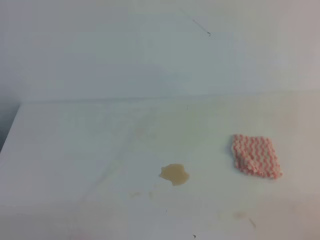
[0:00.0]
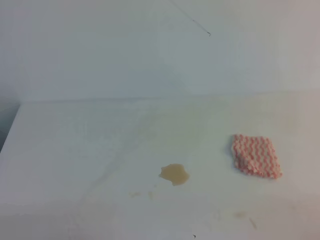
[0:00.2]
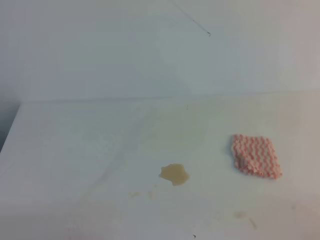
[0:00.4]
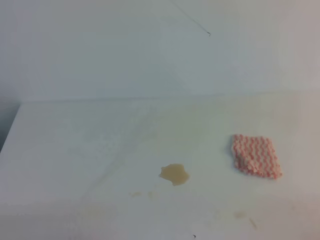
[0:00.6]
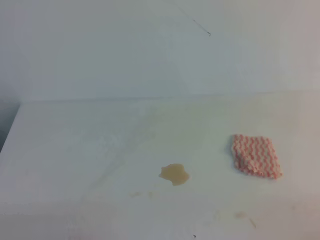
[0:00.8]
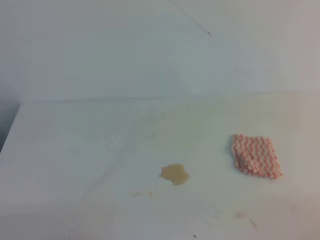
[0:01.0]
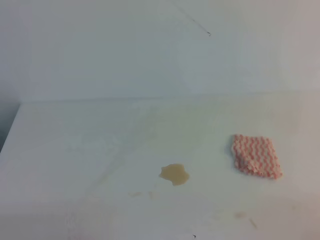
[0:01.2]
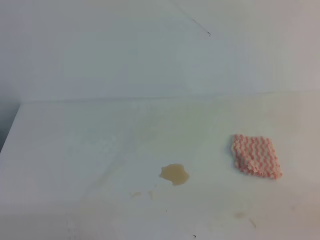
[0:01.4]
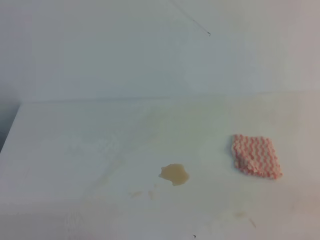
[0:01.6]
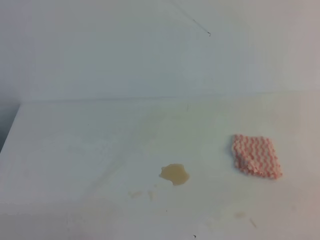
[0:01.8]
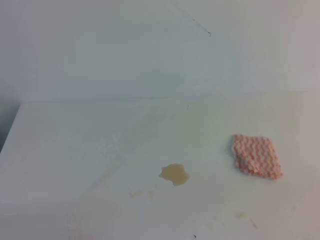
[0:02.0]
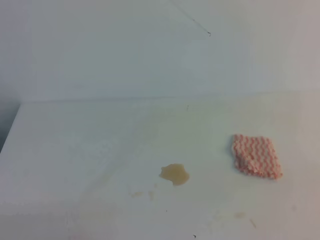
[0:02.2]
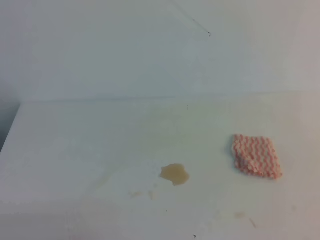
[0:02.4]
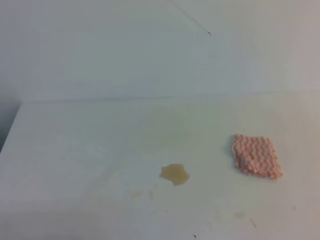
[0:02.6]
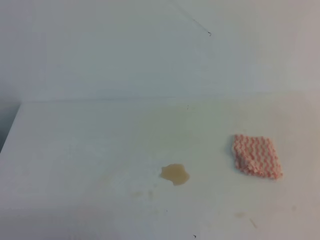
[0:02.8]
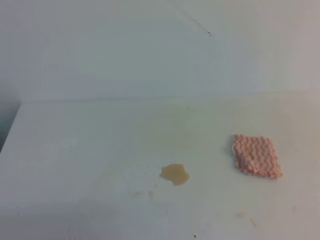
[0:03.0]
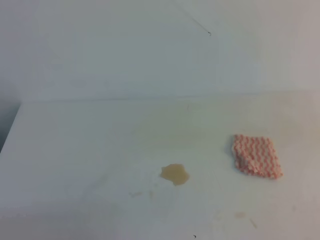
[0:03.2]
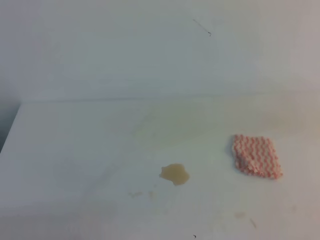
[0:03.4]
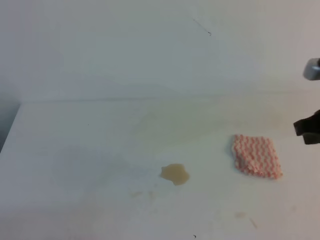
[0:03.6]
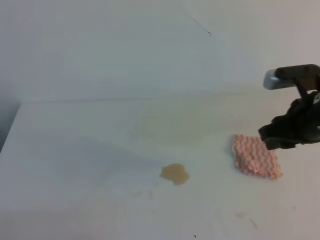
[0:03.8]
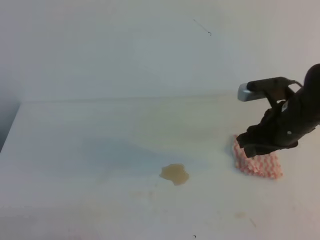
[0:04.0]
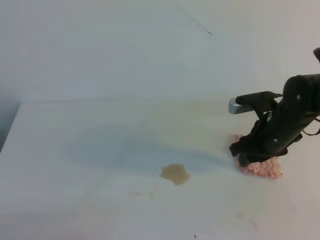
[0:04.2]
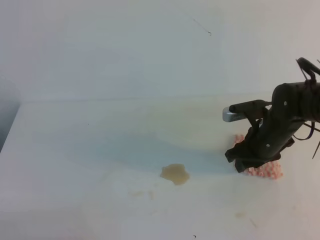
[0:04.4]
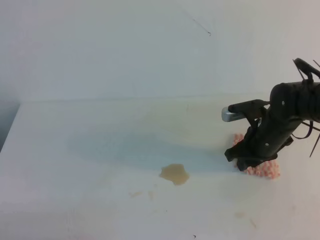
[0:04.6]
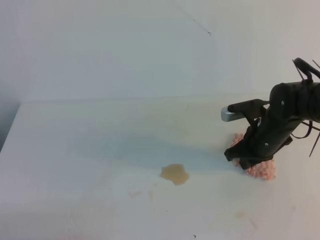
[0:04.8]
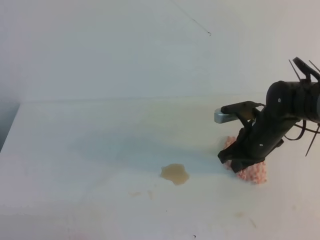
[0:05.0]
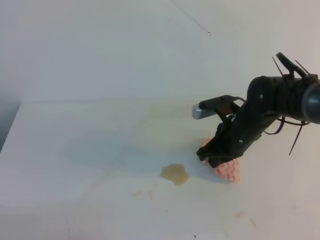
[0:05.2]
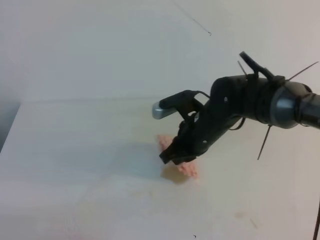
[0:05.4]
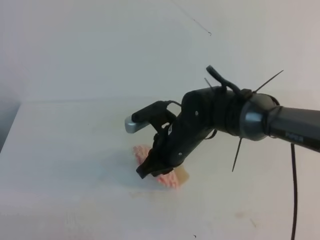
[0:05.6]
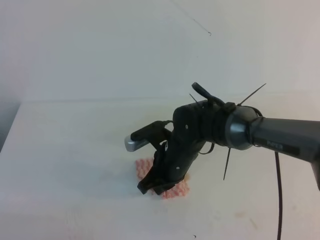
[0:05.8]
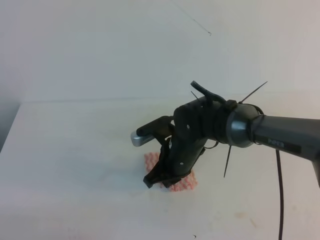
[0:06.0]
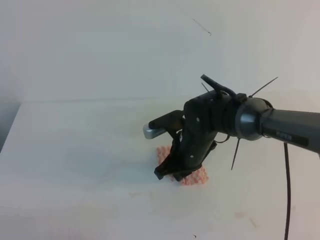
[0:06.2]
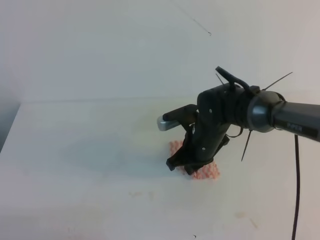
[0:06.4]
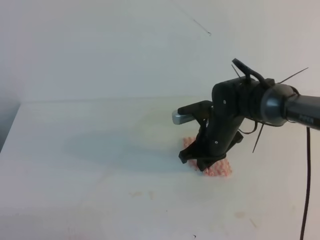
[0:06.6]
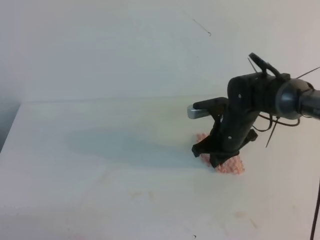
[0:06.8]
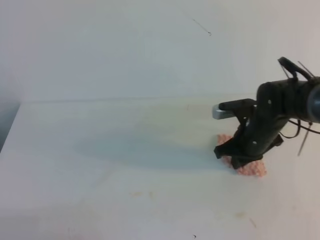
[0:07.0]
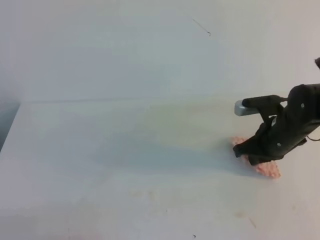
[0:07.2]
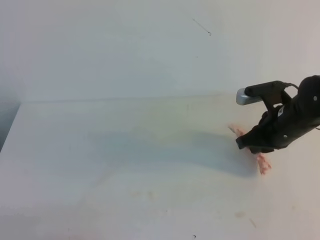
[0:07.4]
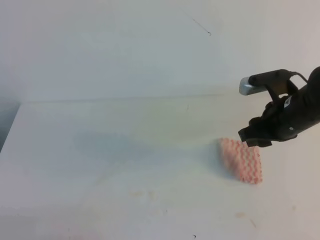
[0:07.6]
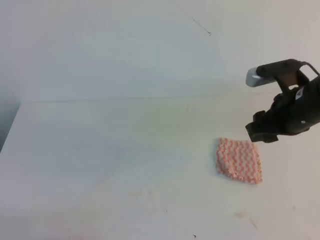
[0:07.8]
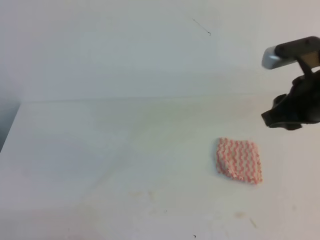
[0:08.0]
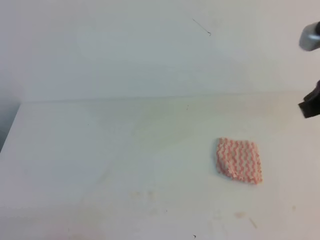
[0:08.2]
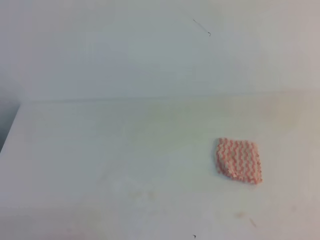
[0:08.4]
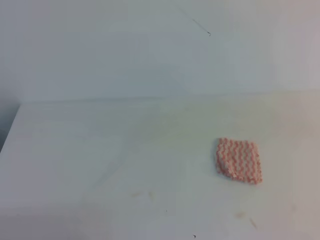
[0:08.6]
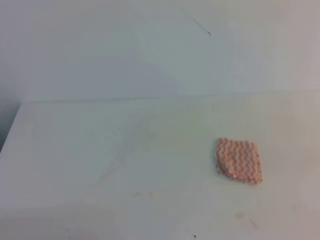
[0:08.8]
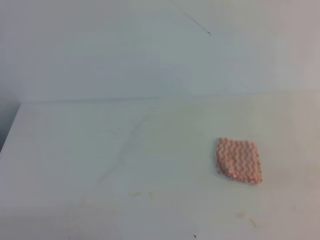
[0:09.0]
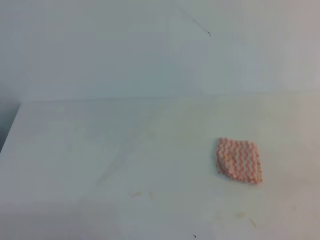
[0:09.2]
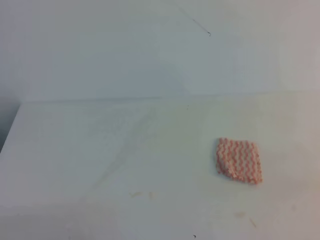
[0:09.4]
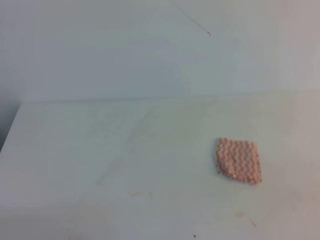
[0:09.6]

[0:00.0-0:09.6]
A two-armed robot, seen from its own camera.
0:03.2 to 0:04.8: The right gripper goes roughly 30 cm forward, downward and to the left, and opens, then closes once more.
0:04.8 to 0:06.4: The right gripper is displaced to the left by approximately 10 cm.
0:06.4 to 0:08.0: The right gripper travels upward, to the right and backward by roughly 25 cm, and opens its fingers.
0:08.0 to 0:09.6: The right gripper travels backward and to the right by some 25 cm, and closes its fingers.

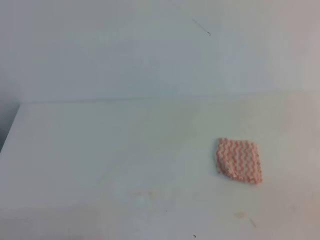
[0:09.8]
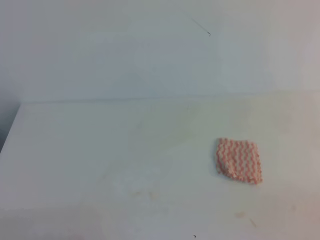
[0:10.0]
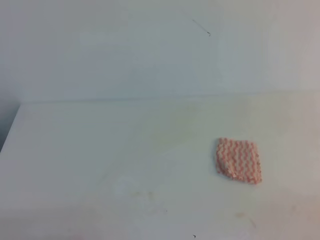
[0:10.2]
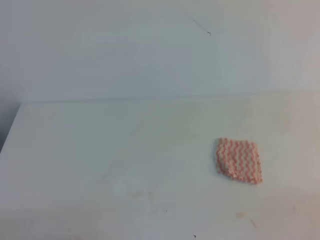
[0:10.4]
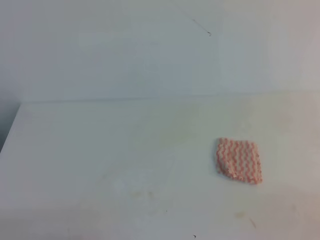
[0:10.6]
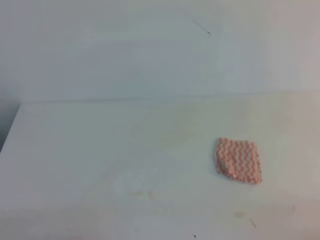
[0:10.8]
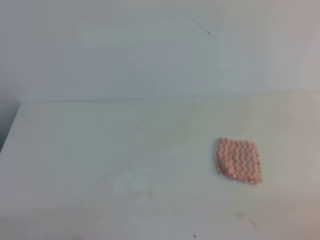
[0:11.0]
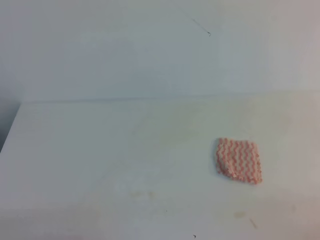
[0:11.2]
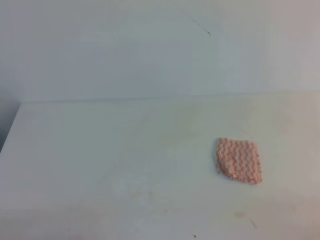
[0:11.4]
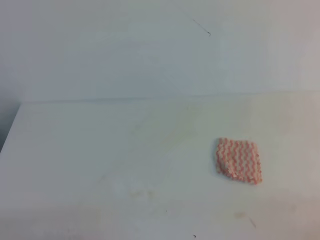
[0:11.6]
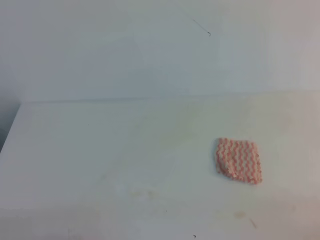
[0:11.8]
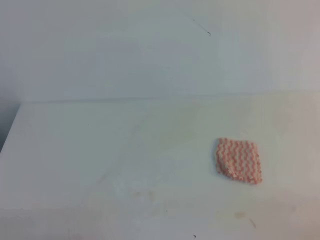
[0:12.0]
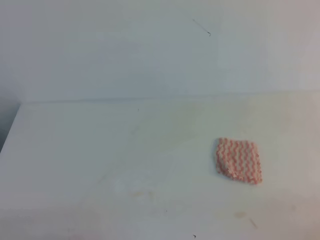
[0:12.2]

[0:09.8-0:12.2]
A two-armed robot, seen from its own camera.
0:11.0 to 0:12.2: Both grippers stay about where they are.

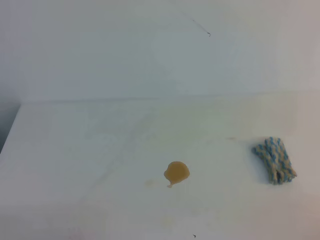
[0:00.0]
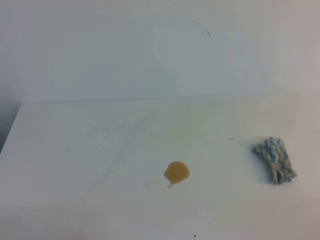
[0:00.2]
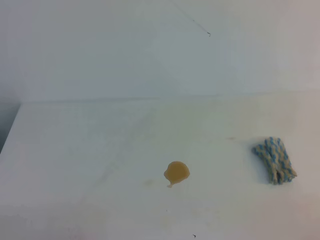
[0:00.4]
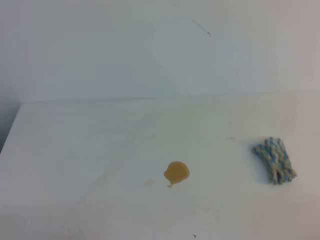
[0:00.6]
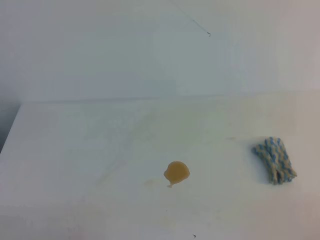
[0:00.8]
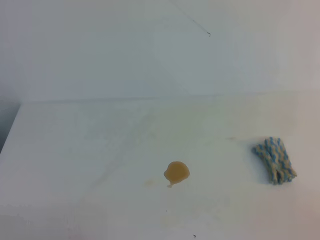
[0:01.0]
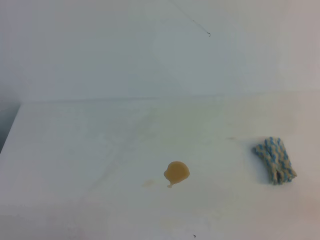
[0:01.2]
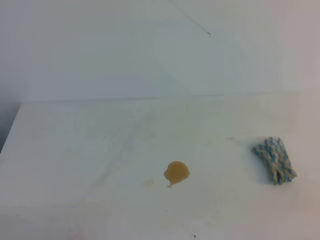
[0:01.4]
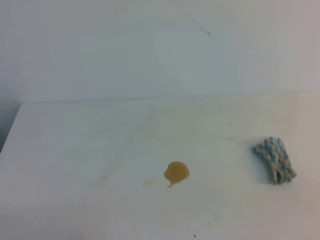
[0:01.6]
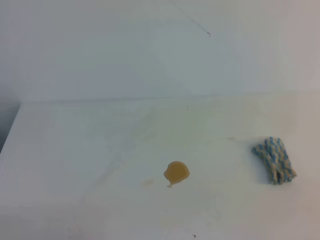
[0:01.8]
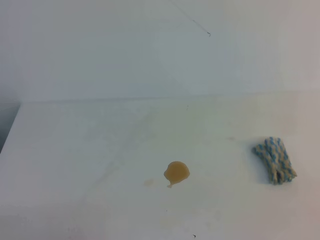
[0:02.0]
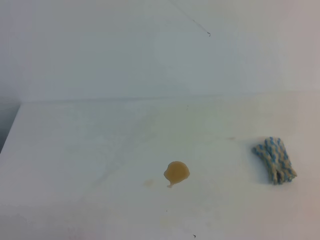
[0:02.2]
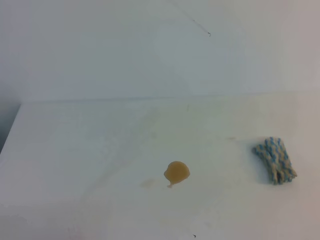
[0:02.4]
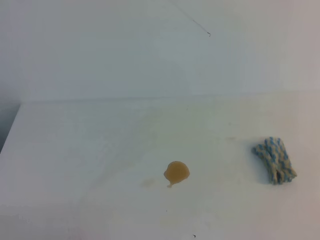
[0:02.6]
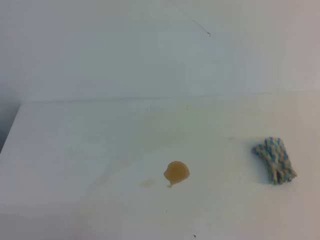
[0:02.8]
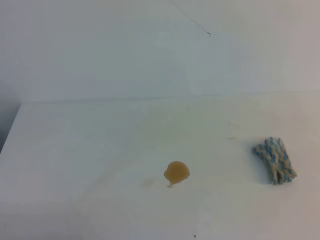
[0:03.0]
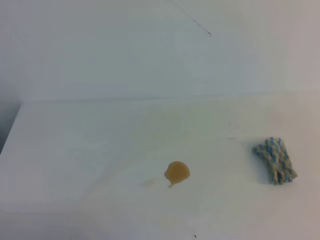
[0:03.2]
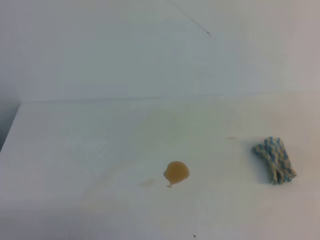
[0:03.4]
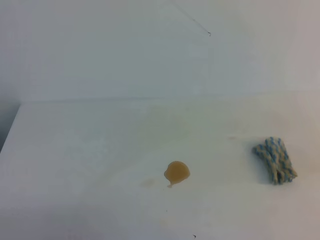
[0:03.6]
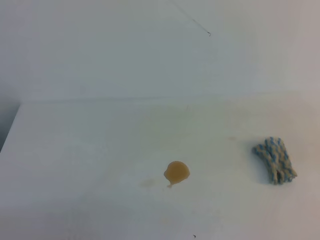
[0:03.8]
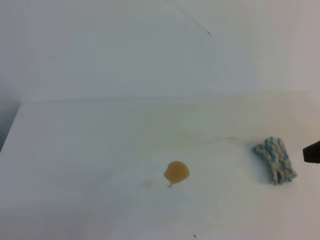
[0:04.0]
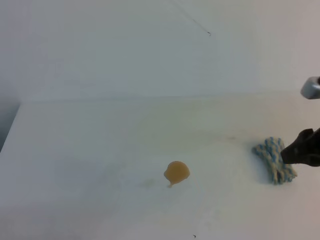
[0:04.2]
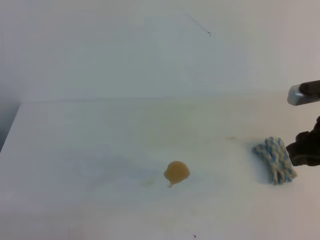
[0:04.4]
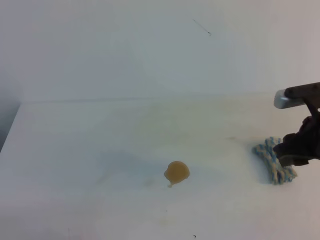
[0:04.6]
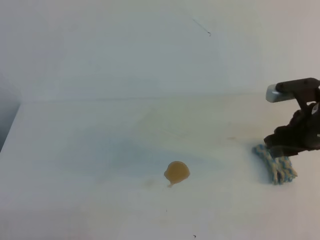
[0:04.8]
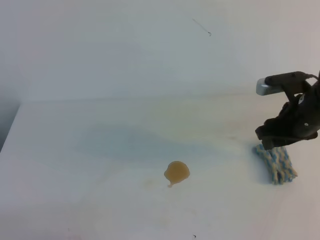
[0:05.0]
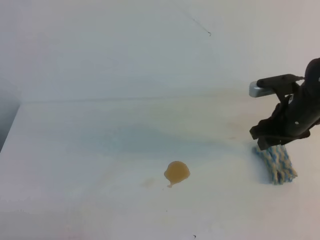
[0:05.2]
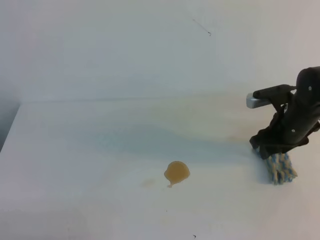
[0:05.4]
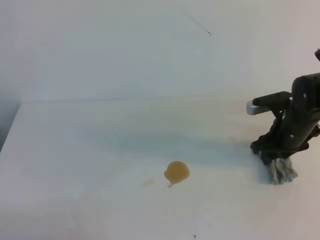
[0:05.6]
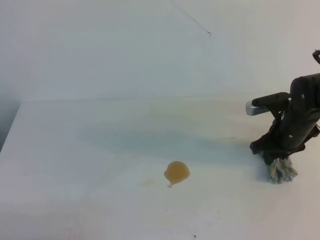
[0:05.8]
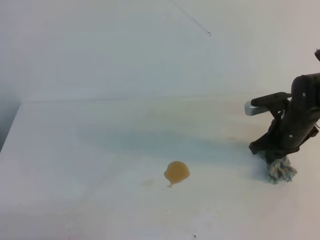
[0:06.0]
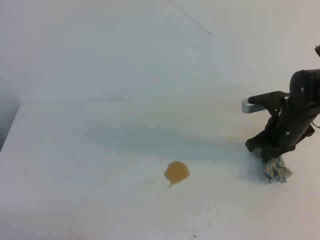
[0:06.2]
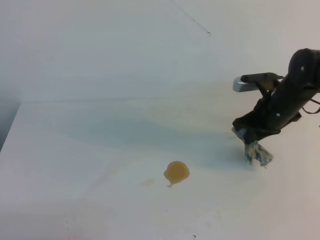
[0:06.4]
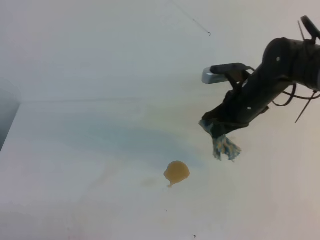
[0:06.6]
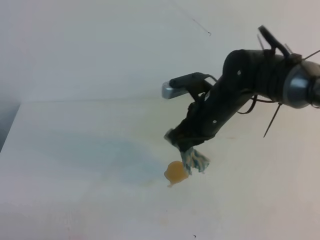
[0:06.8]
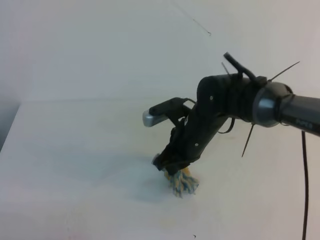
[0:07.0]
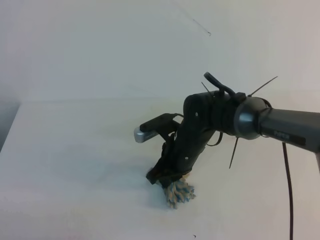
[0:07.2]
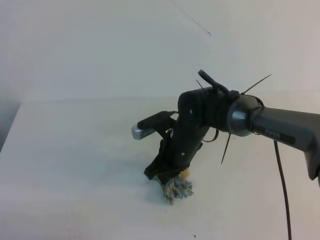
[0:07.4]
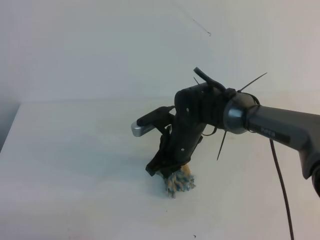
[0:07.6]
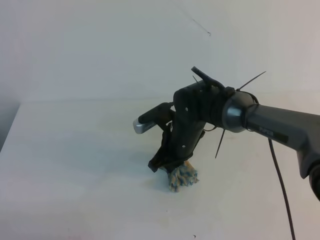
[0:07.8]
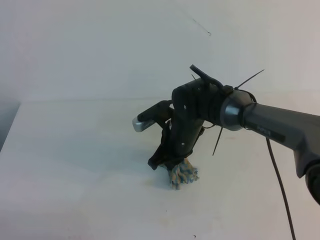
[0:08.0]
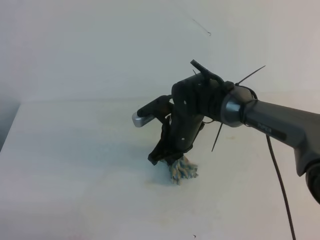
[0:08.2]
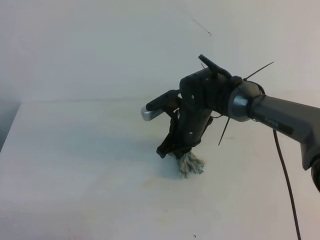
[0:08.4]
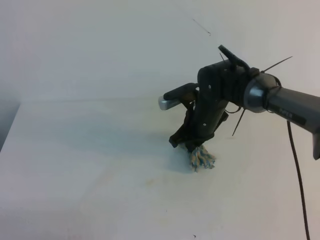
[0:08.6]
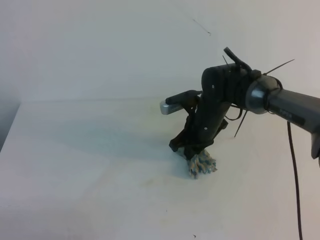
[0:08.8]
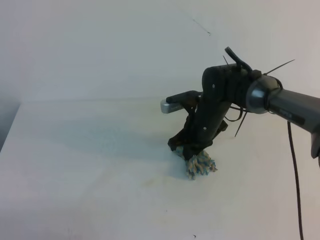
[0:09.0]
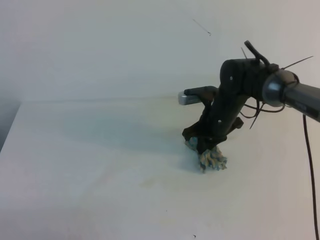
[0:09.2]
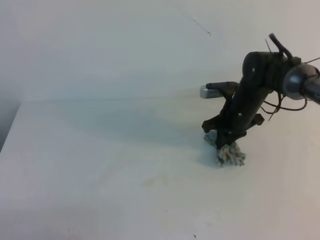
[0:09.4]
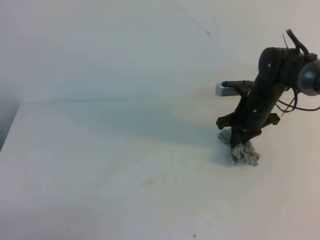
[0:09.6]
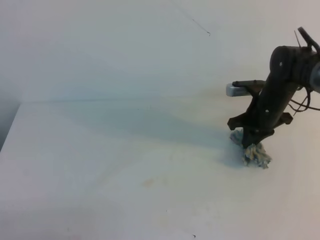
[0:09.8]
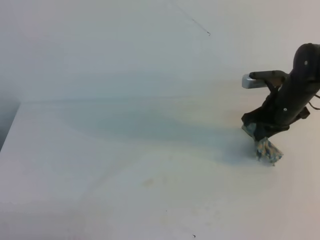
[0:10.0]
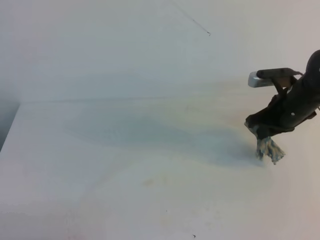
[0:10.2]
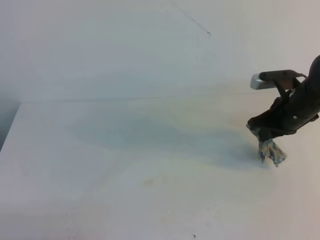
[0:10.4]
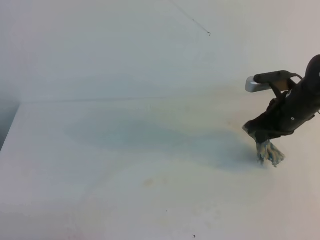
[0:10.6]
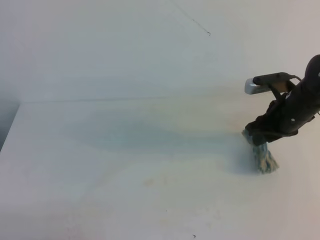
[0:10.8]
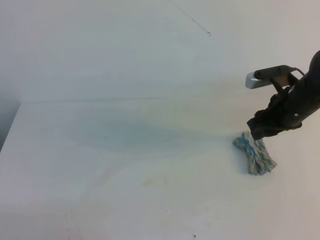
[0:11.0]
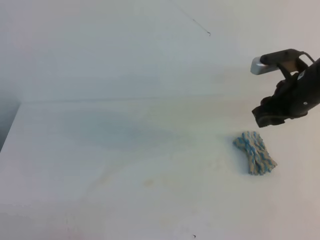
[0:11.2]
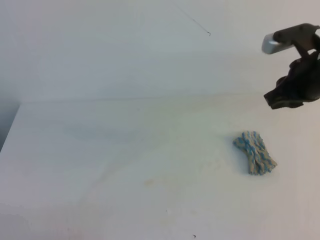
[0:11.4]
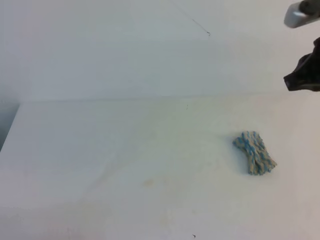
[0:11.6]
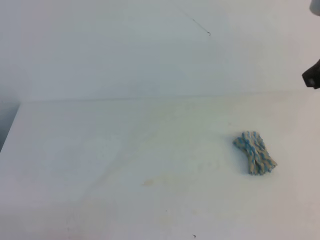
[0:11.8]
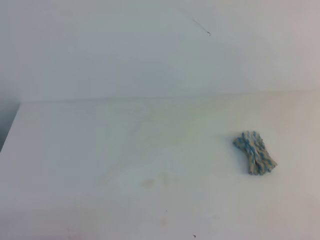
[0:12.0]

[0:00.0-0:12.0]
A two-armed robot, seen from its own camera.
0:03.0 to 0:04.4: The right gripper goes about 20 cm forward and to the left, and opens.
0:04.4 to 0:06.0: The right gripper goes some 15 cm forward and downward, and closes.
0:06.0 to 0:07.6: The right gripper travels to the left by approximately 20 cm.
0:07.6 to 0:09.0: The right gripper heads to the right and forward, covering some 10 cm.
0:09.0 to 0:10.4: The right gripper shifts roughly 15 cm to the right.
0:10.4 to 0:12.0: The right gripper travels upward and backward by about 30 cm, and opens, then closes once more.
